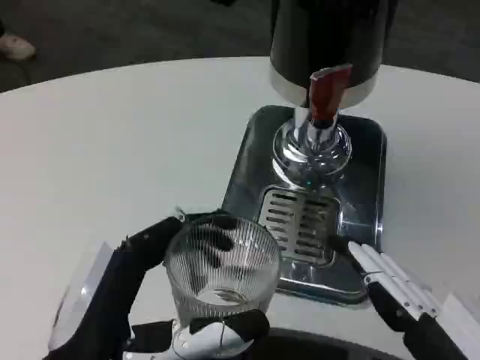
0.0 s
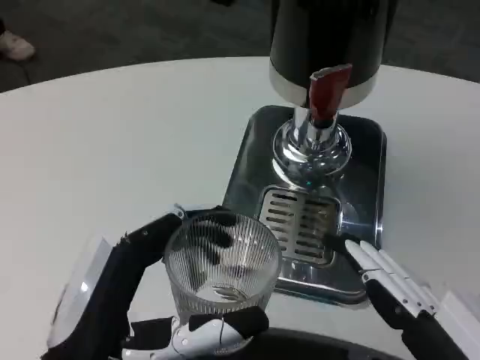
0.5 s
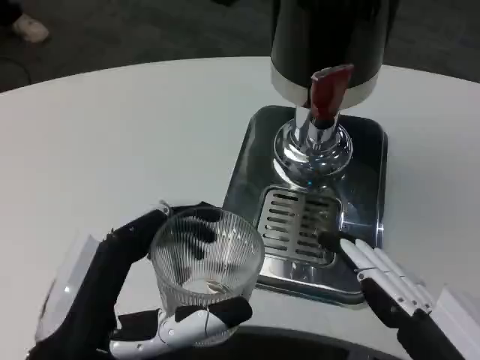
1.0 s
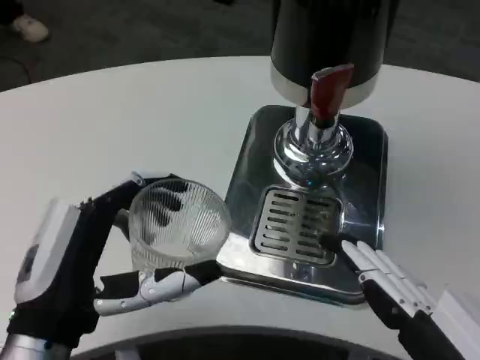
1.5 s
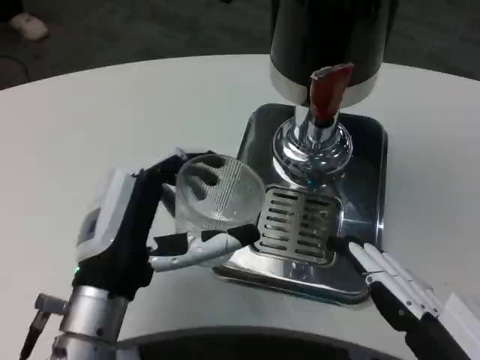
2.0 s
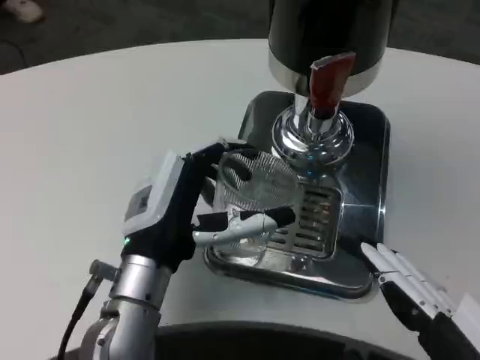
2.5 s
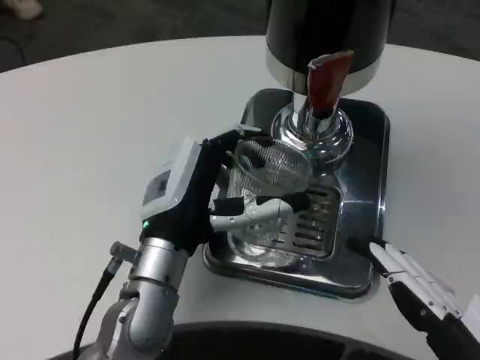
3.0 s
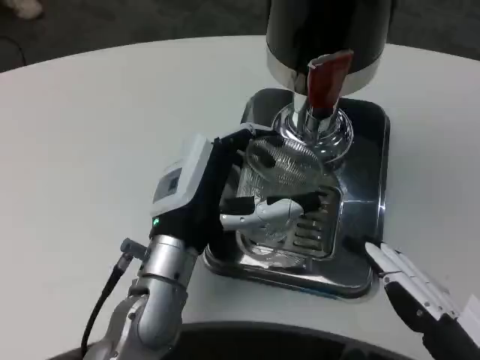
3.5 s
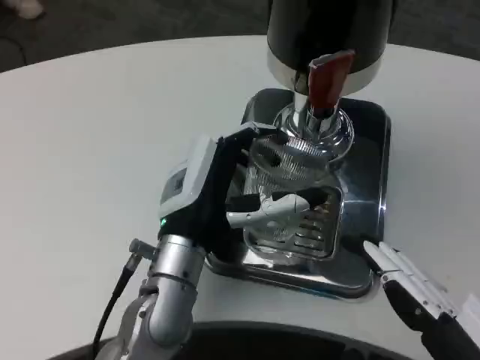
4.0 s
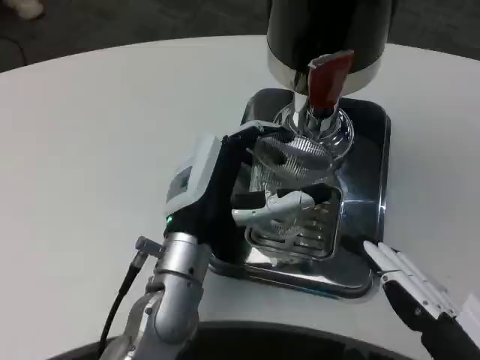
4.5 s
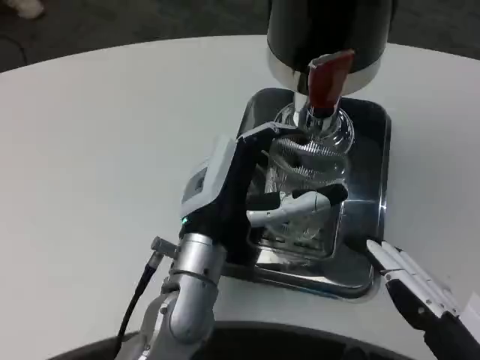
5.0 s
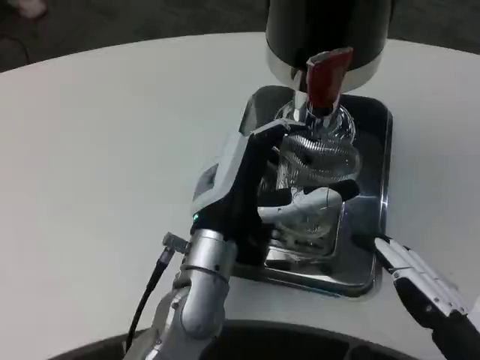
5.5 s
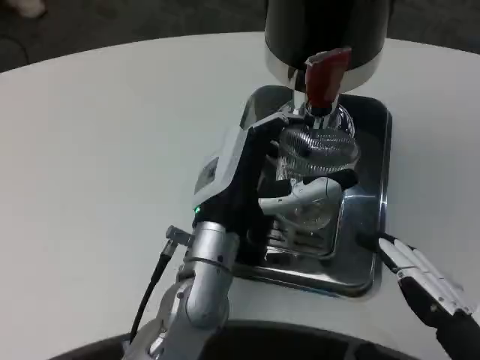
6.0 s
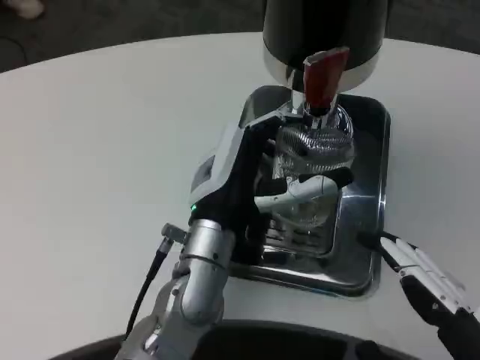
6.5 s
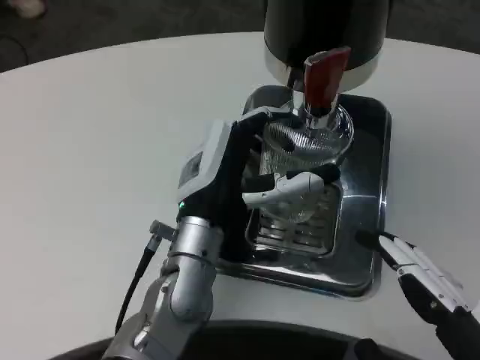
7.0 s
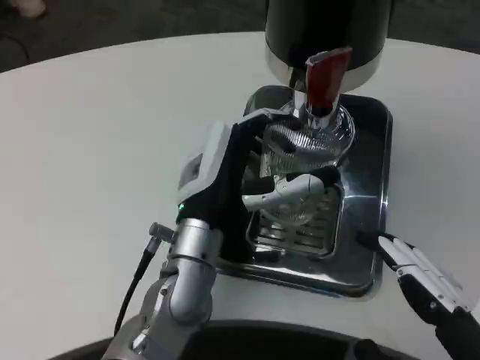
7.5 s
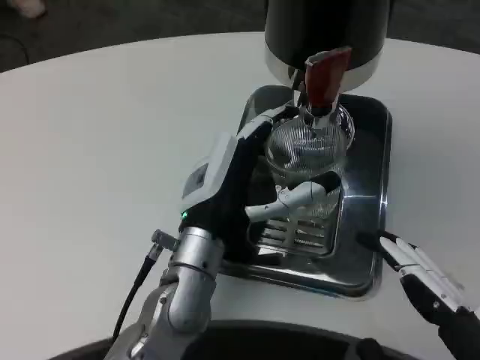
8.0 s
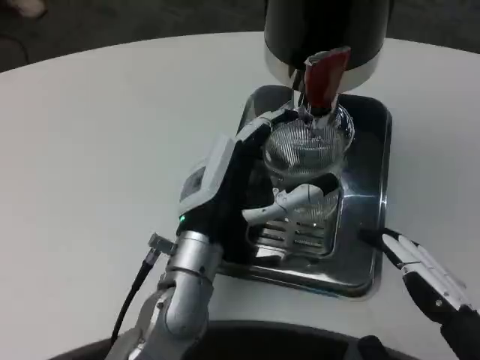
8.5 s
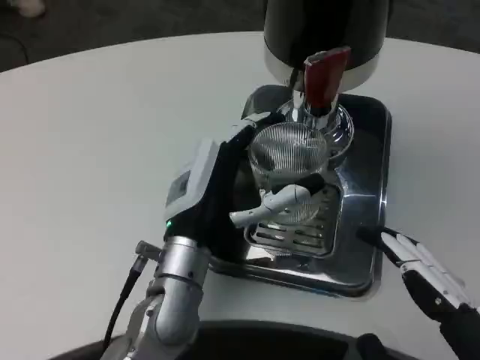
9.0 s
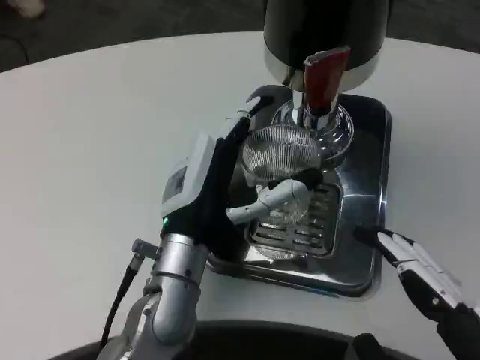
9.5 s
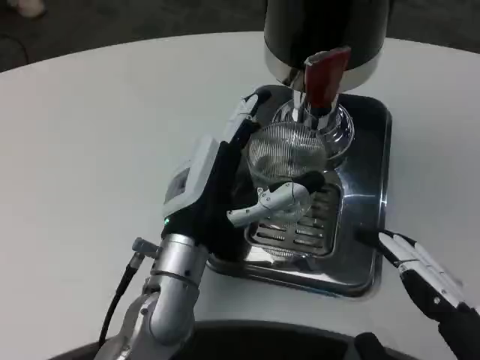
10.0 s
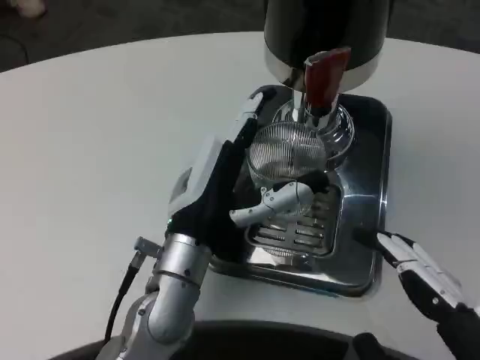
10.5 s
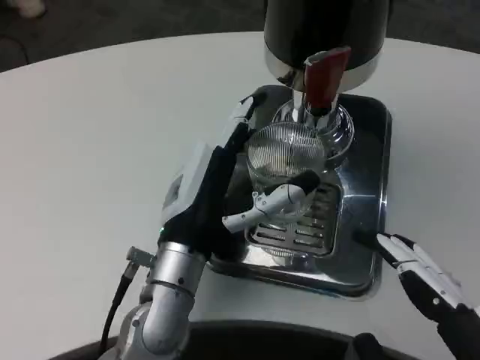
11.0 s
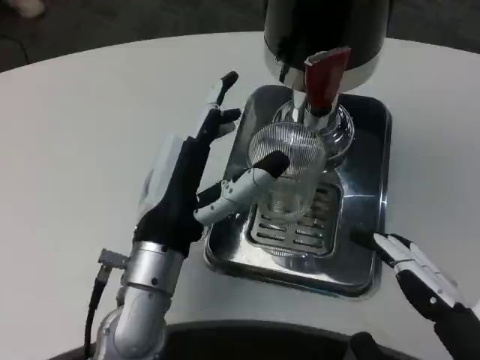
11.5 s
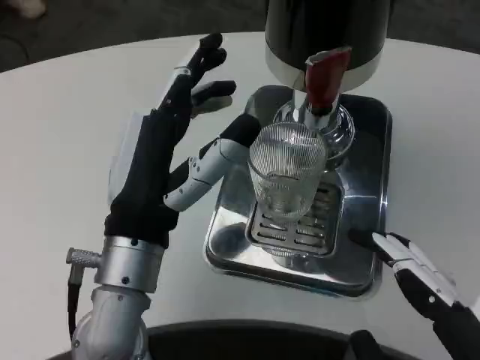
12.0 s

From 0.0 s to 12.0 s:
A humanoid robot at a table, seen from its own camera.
Task of the whole recording: Grasp the cup under the faucet to collect the drink, then remove the cup.
From 0.0 s to 2.0 s: The left hand shifts about 10 cm forward.
From 2.0 s to 4.0 s: The left hand heads to the right and forward, covering some 10 cm.
From 6.0 s to 10.0 s: The hands make only small movements.
From 10.0 s to 12.0 s: The left hand changes place by approximately 5 cm.

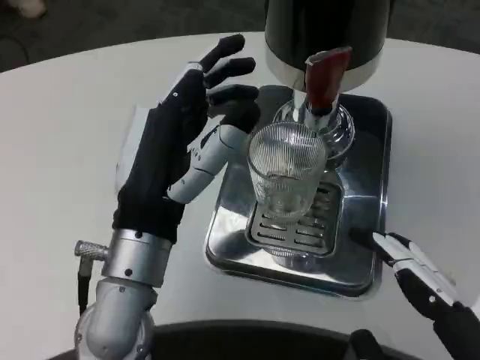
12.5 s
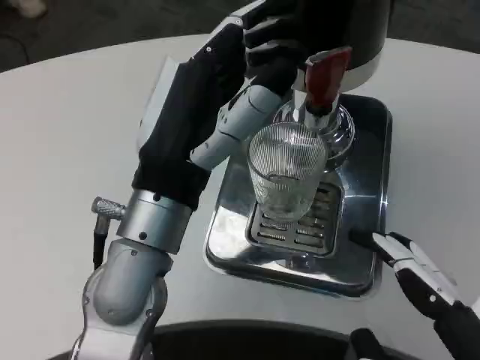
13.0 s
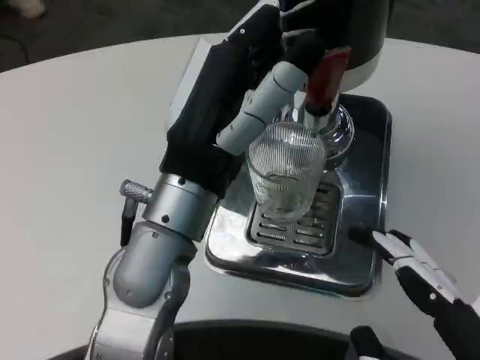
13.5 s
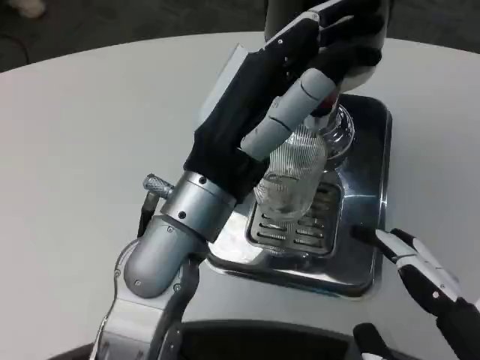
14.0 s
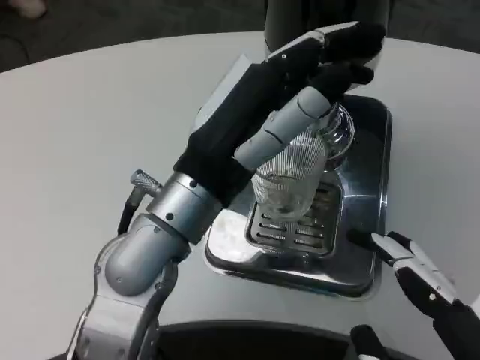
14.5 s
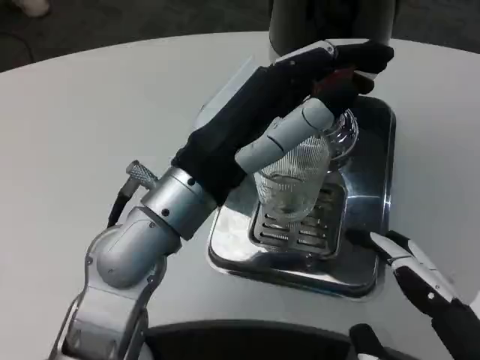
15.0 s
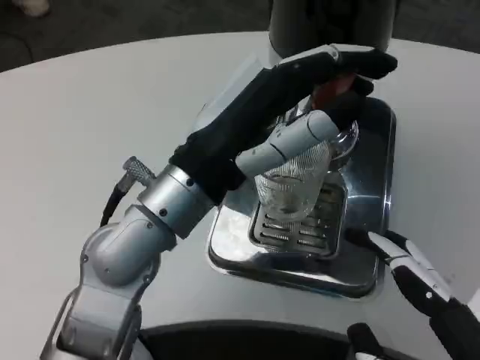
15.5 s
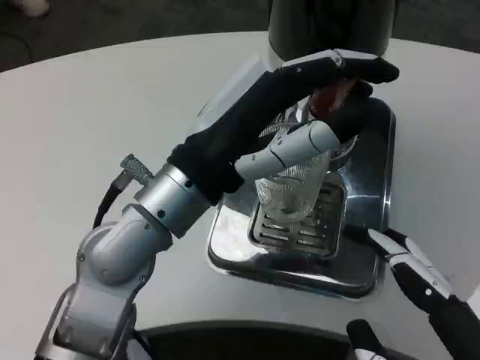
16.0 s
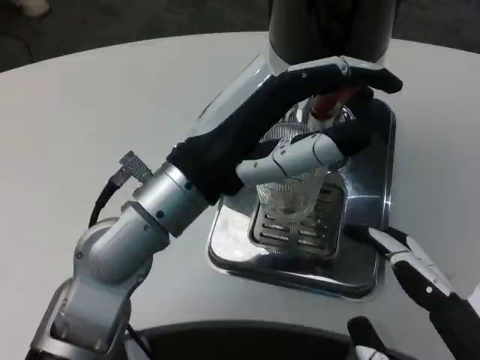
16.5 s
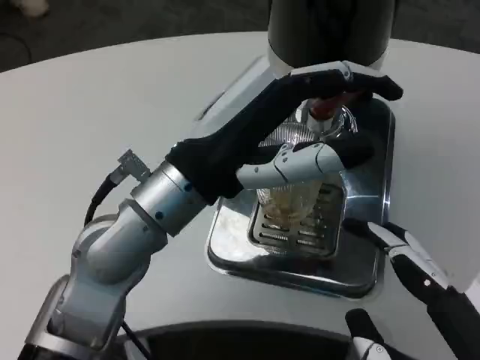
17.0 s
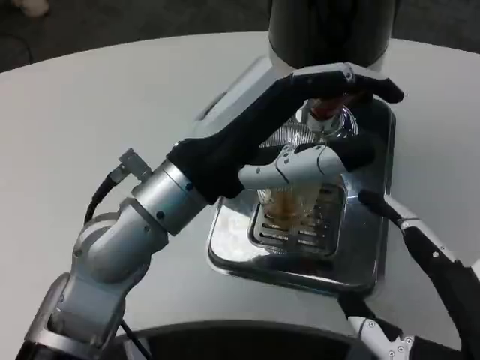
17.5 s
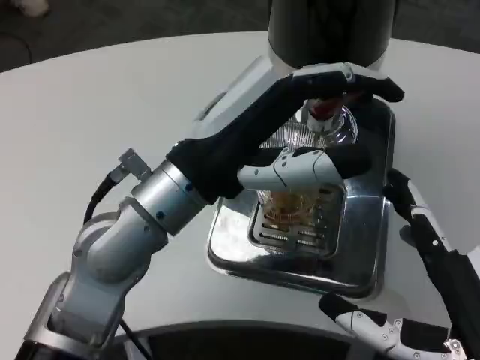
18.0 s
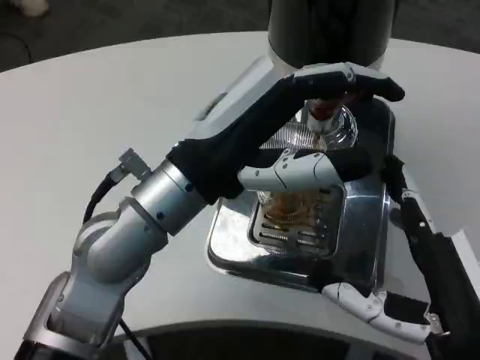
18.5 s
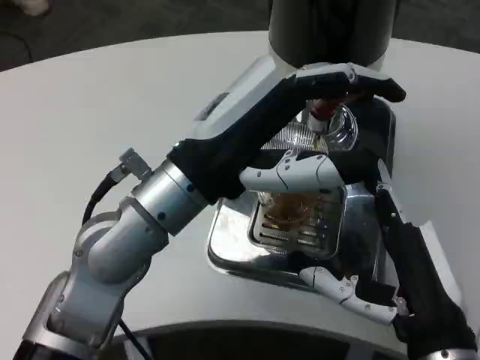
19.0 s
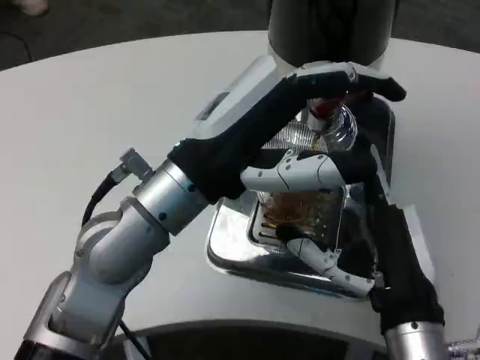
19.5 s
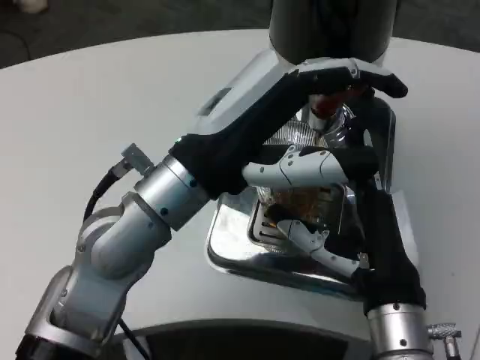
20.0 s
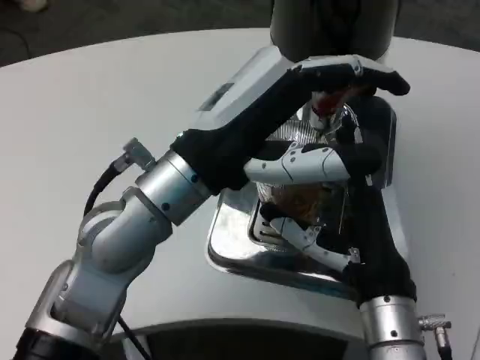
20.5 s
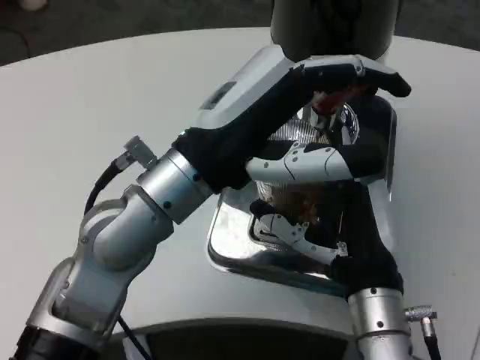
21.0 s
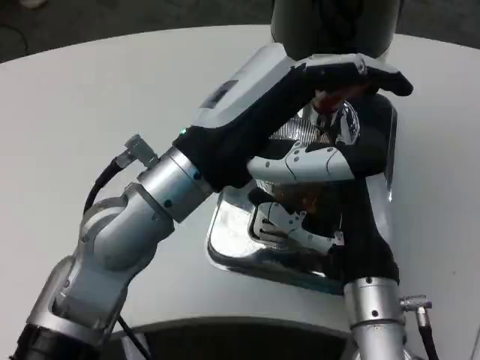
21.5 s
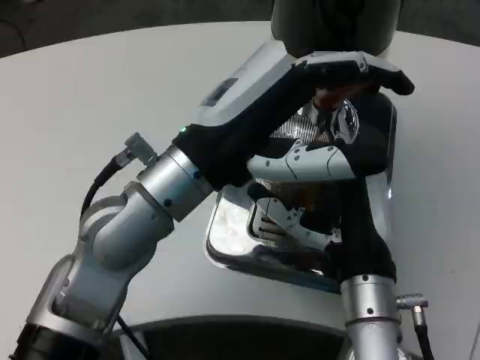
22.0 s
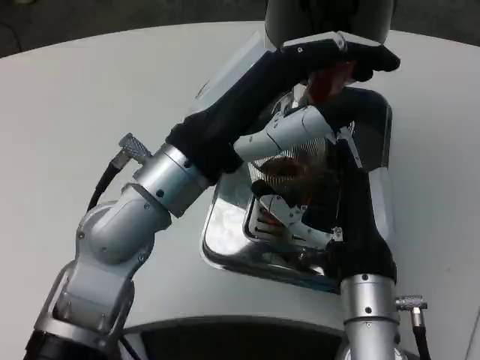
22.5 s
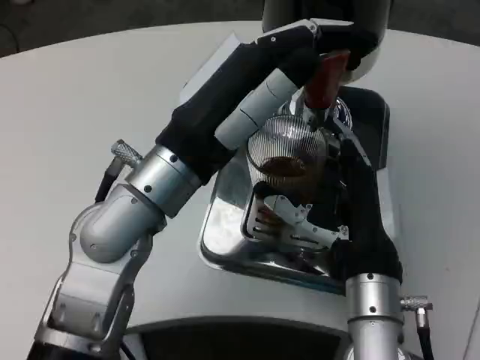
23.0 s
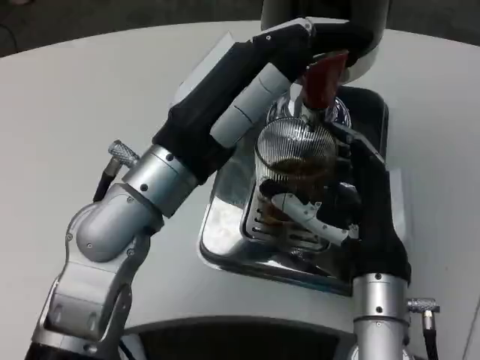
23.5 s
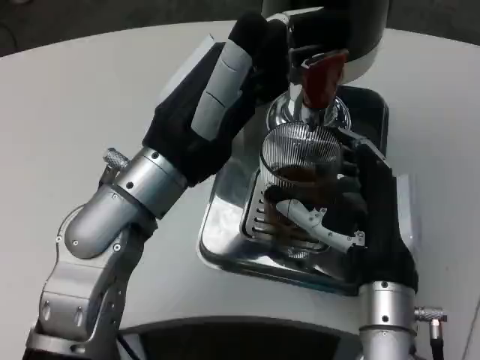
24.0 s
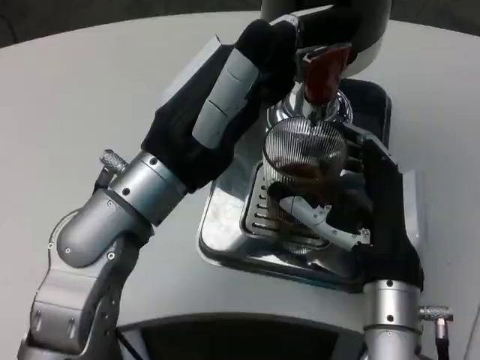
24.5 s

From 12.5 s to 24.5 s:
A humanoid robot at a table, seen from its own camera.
Task of the whole recording: Grasp the cup under the faucet to collect the drink, then remove the cup.
From 12.5 s to 14.5 s: The left hand moves some 5 cm.
From 16.5 s to 18.5 s: The right hand is displaced forward by some 10 cm.
From 18.5 s to 20.5 s: The right hand goes some 10 cm forward and to the left.

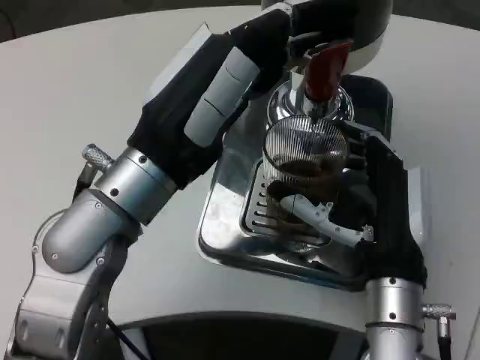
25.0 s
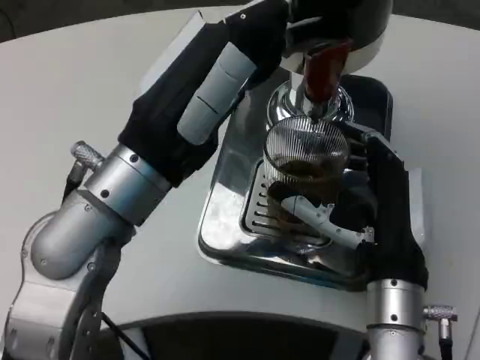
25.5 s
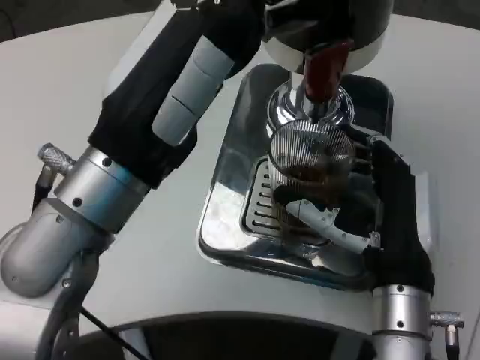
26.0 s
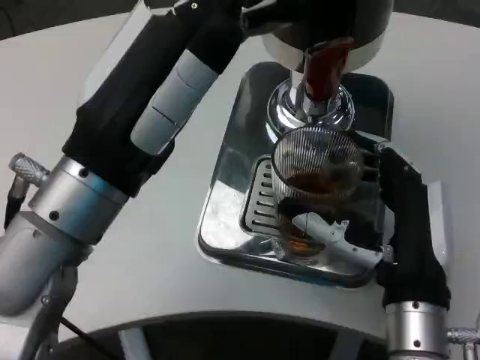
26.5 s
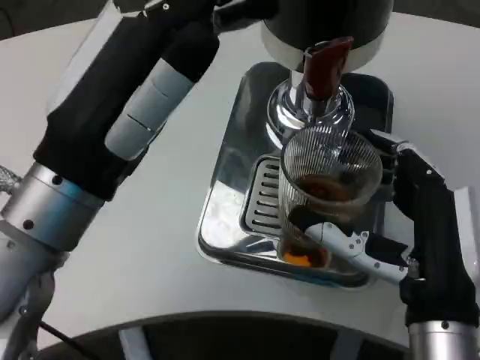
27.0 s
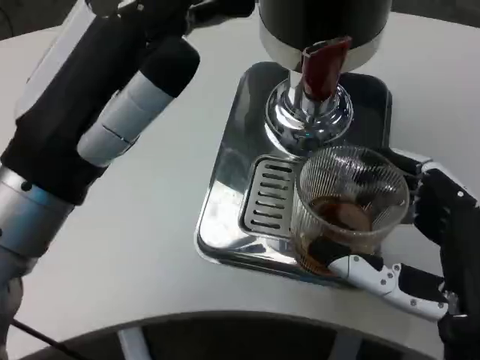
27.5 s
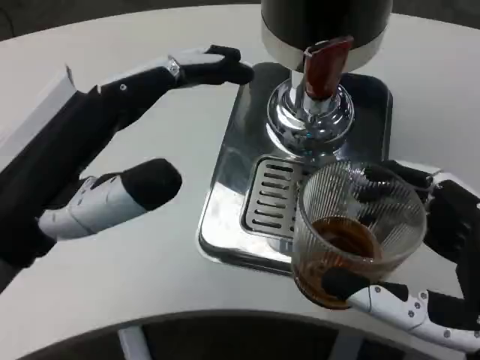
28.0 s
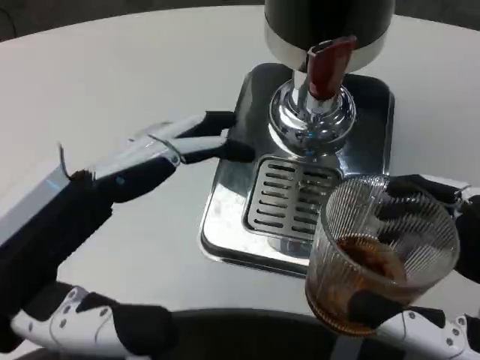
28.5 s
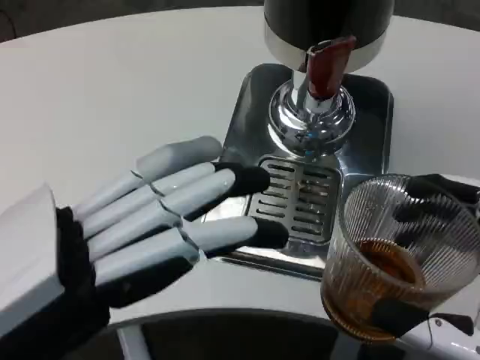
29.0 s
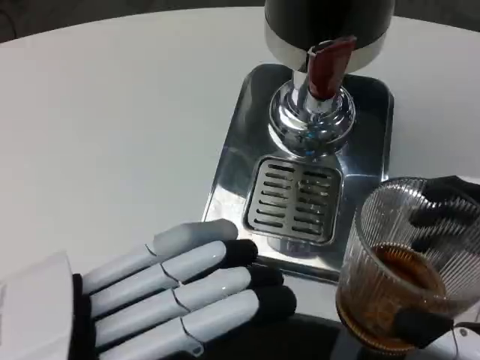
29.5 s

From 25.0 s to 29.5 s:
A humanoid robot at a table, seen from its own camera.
Task of the whole recording: Grasp the cup under the faucet to collect the drink, then remove the cup.
From 25.0 s to 27.0 s: The right hand goes some 5 cm backward, while the left hand ends up approximately 5 cm from where it was.
From 27.0 s to 29.5 s: The right hand moves backward and to the right, approximately 15 cm; the left hand heads backward and to the left, covering some 15 cm.
